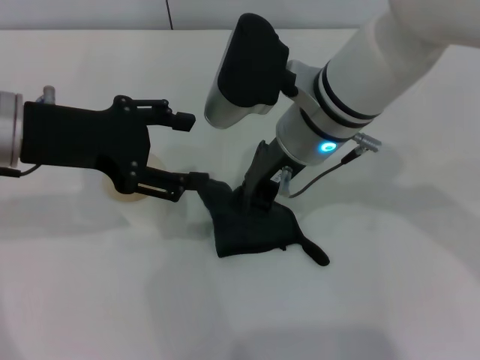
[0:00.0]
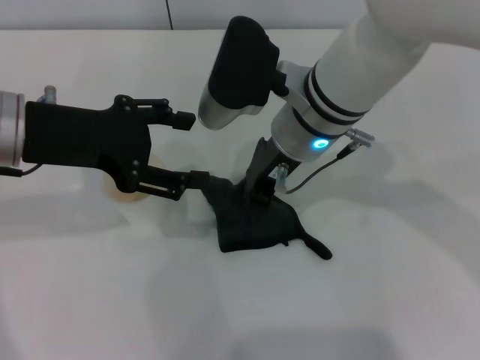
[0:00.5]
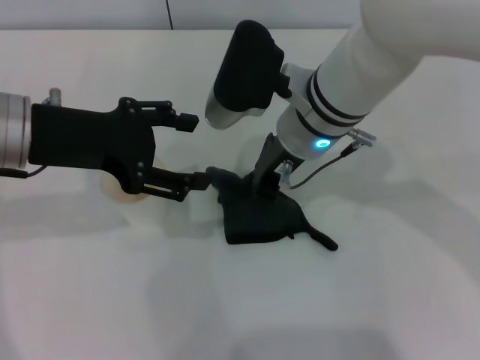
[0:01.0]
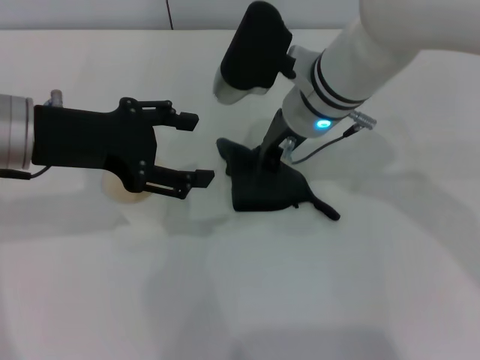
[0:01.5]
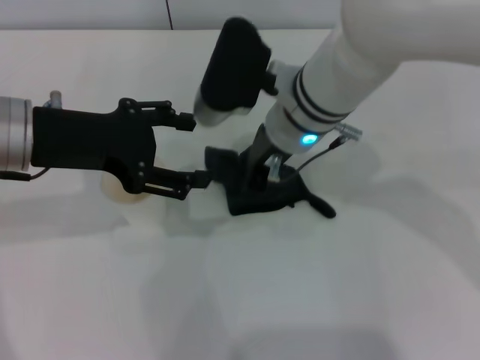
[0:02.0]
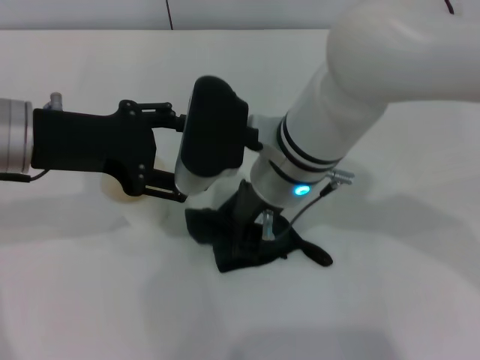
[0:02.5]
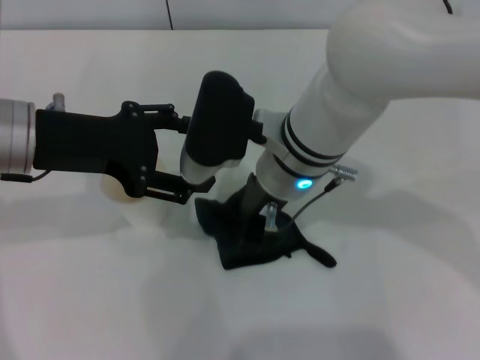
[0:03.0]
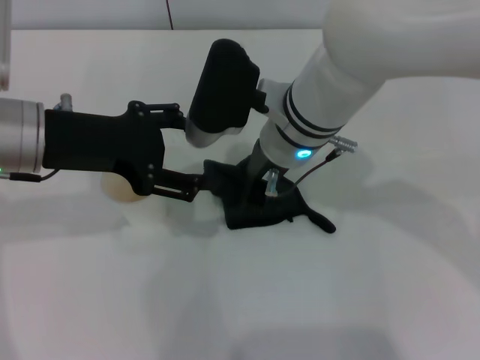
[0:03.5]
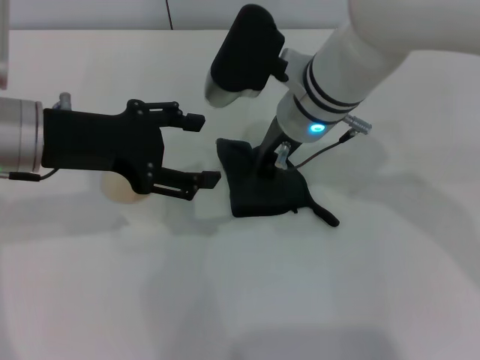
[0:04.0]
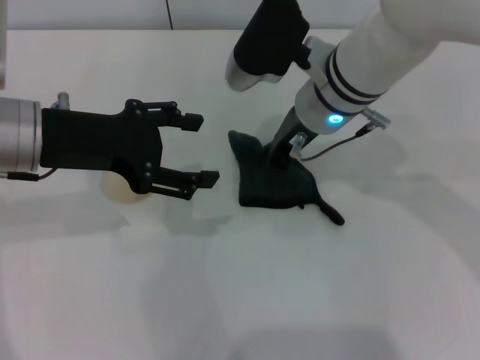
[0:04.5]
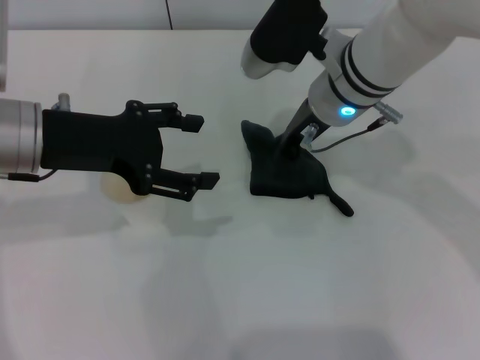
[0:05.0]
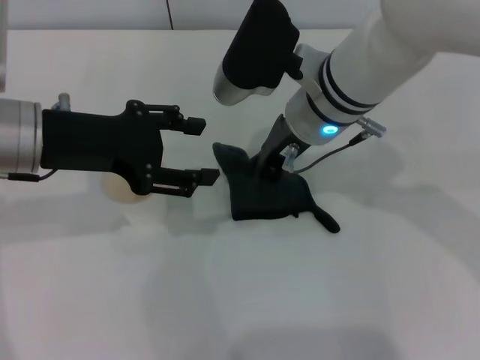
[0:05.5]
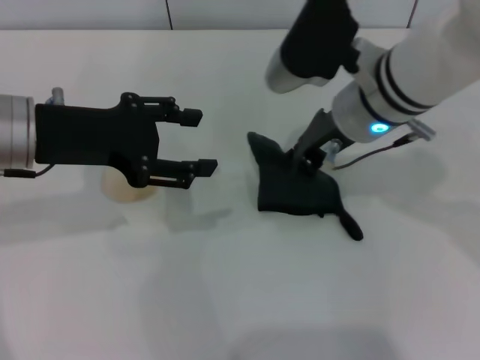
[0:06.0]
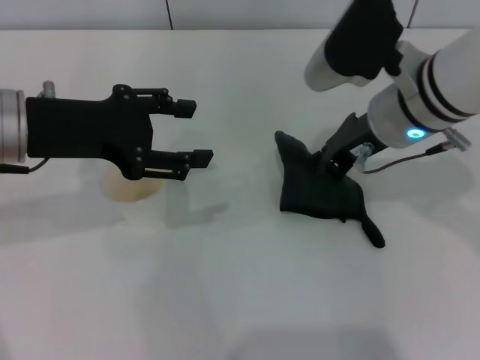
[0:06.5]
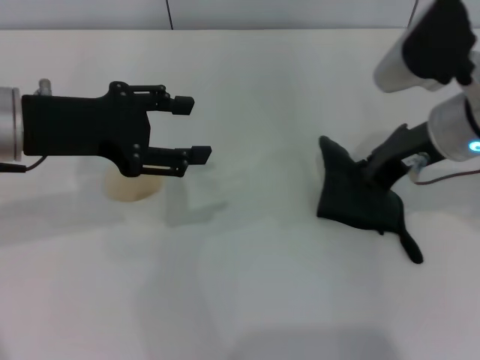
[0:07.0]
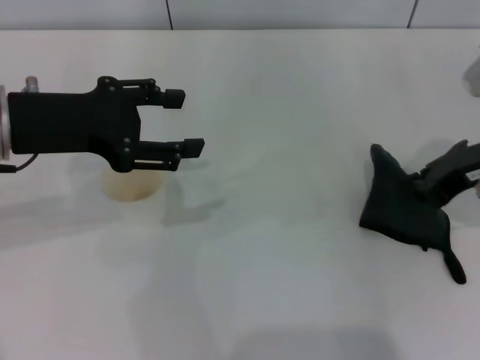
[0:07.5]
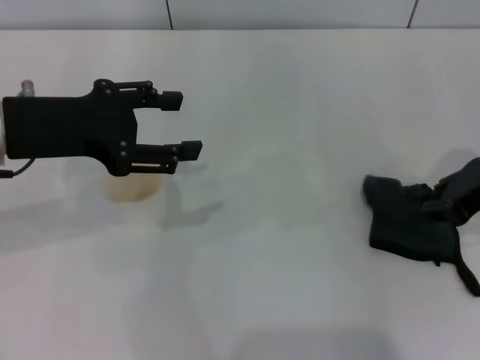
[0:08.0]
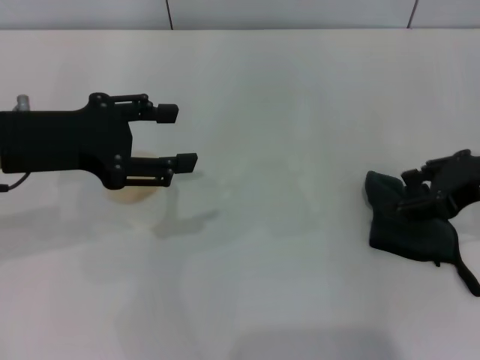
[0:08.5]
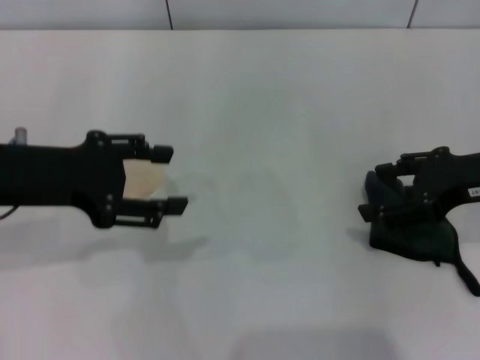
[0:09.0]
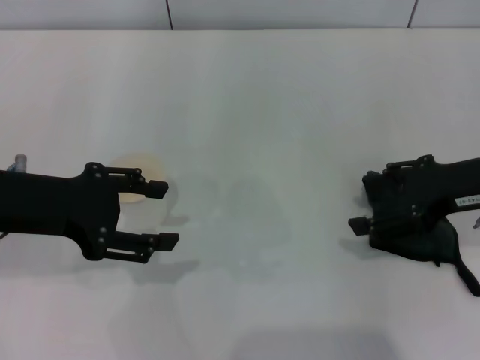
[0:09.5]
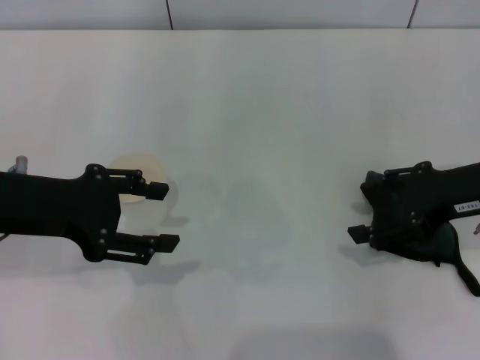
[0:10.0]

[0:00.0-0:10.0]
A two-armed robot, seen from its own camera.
Step, 0.0 to 7.5 s: Wipe the stains off the table with the right gripper.
Step, 8.0 to 9.0 s: Place the rag on the table with the right gripper.
0.0 to 4.0 s: The grippers stay close to where they were, moving slightly.
4.0 to 6.0 s: The left gripper closes its fingers. The right gripper heads to the right, covering some 5 cm.
6.0 to 8.0 s: The right gripper moves to the right, about 15 cm.
8.0 to 10.0 s: The right gripper opens.

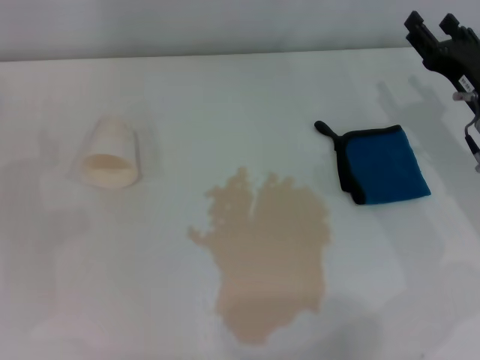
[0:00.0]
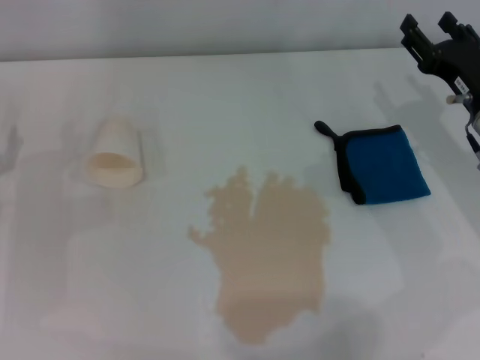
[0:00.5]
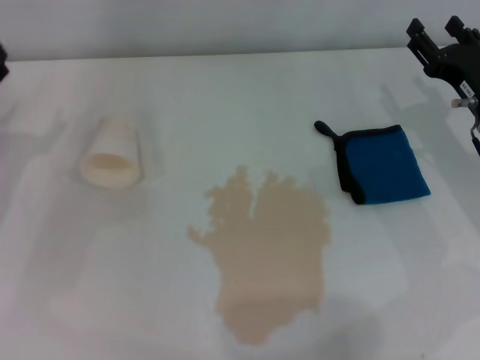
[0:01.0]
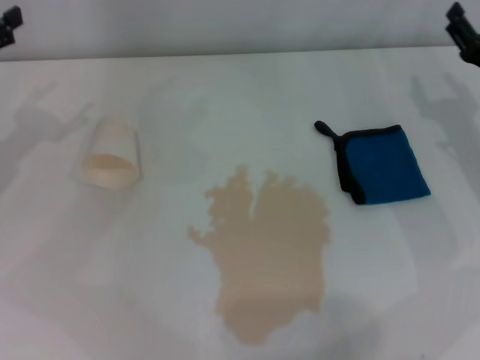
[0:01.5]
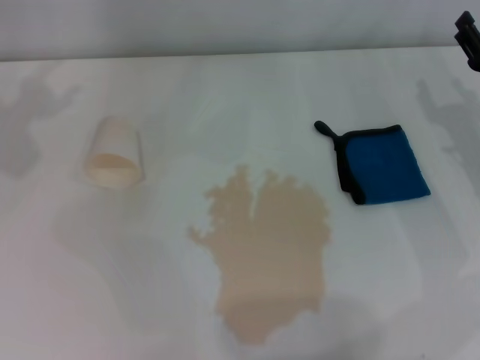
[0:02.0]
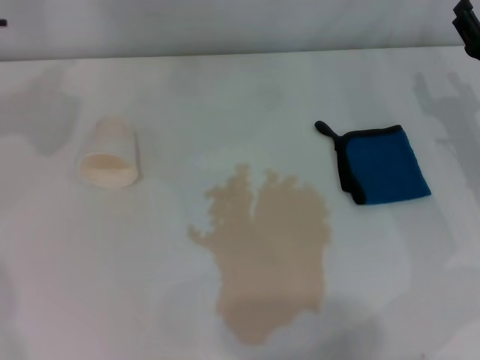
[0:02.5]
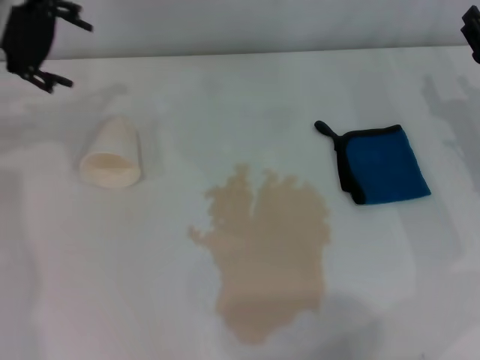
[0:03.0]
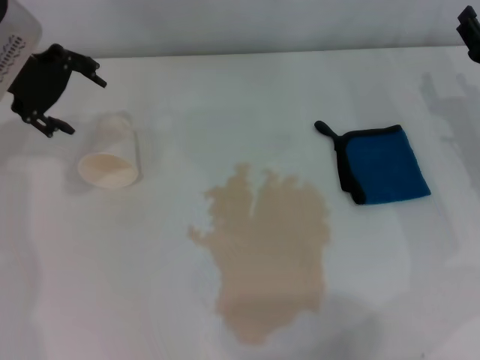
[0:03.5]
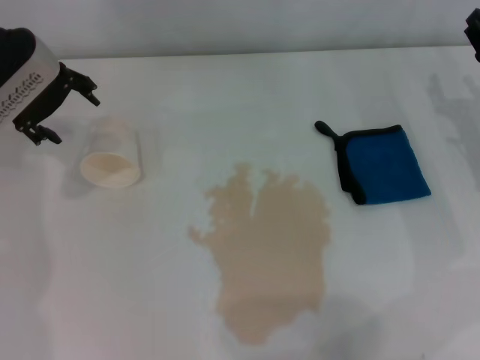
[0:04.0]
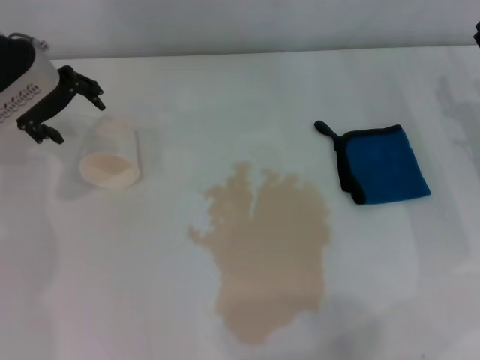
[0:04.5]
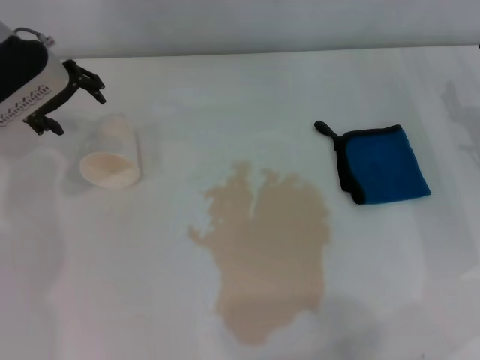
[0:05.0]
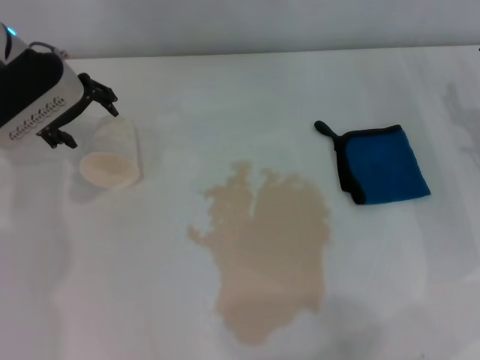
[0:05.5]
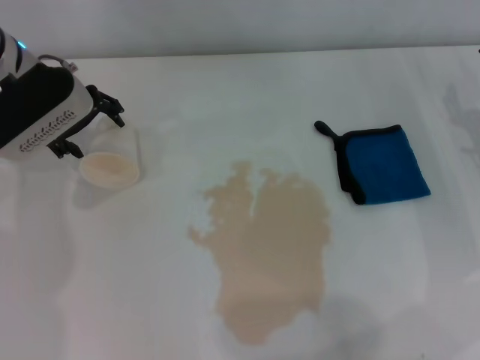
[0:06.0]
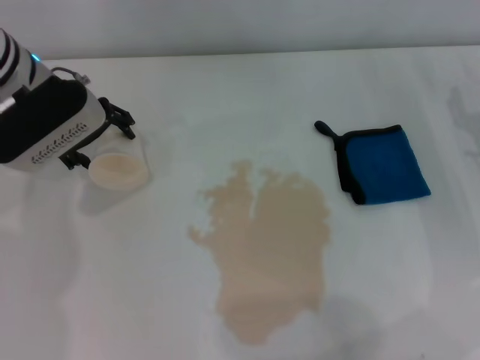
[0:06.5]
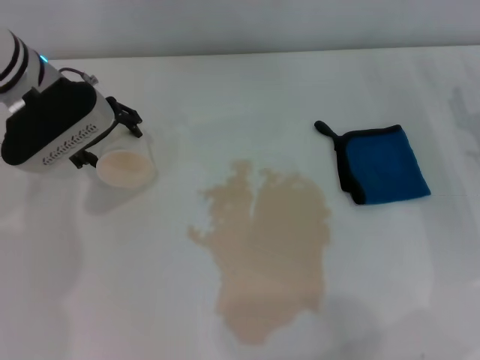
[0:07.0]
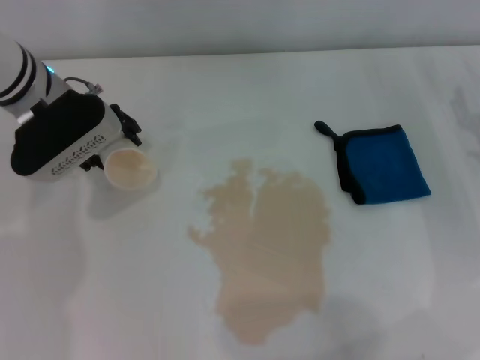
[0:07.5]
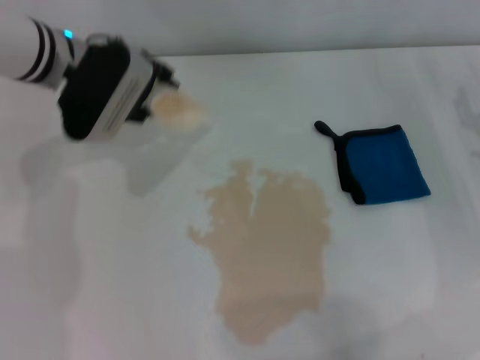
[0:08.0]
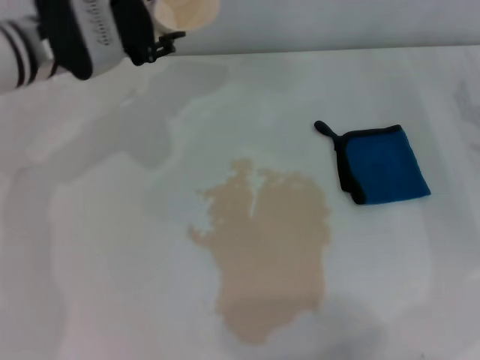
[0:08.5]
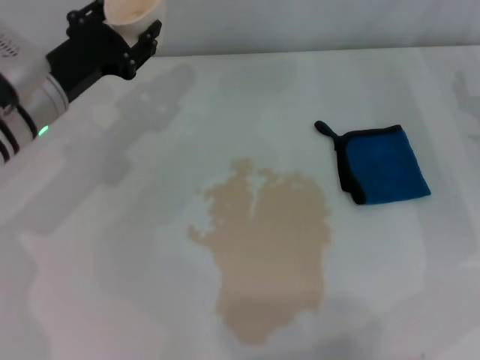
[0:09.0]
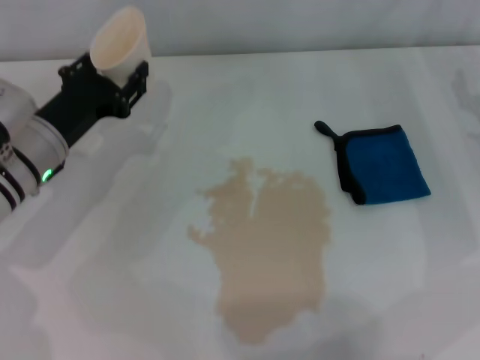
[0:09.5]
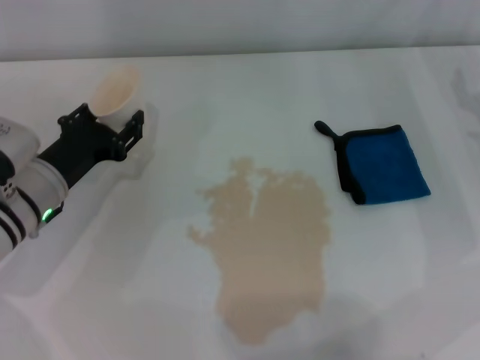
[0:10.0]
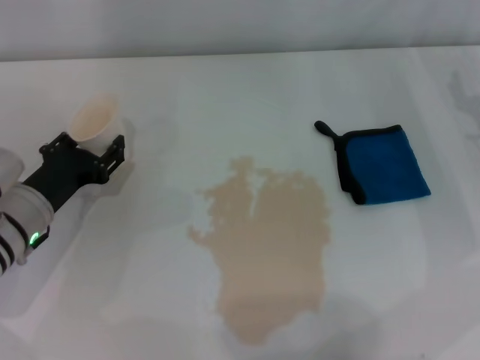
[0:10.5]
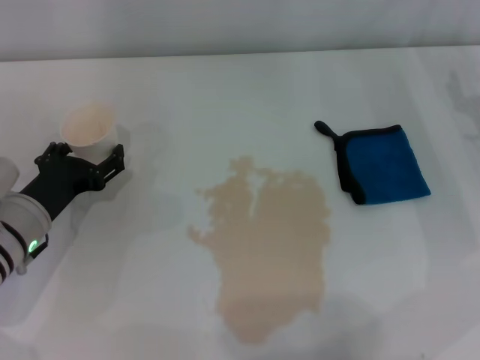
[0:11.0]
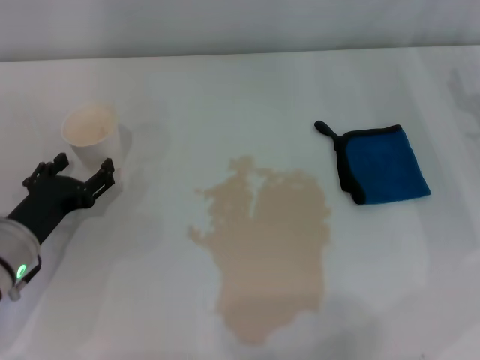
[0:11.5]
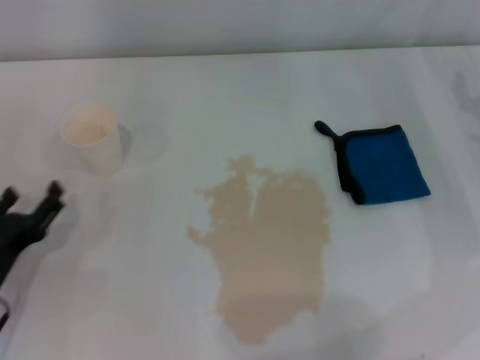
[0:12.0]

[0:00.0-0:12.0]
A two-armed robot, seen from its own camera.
Step, 0.0 to 7.5 s: Grasp the paper cup with the left gripper.
Step, 8.0 to 10.5 s: Stand the paper cup upright with the left gripper.
2.0 to 4.0 s: The left gripper is displaced to the right, downward and forward by roughly 15 cm.
4.0 to 6.0 s: The grippers stay close to where they were, moving slightly.
6.0 to 8.0 s: The left gripper closes.
8.0 to 10.0 s: The left gripper is displaced downward, backward and to the left by roughly 15 cm.
10.0 to 12.0 s: The left gripper is displaced backward and to the left by some 15 cm, and opens its fingers.

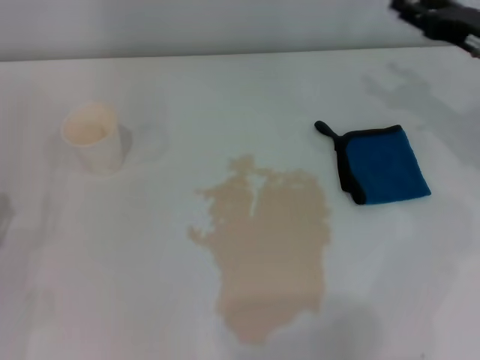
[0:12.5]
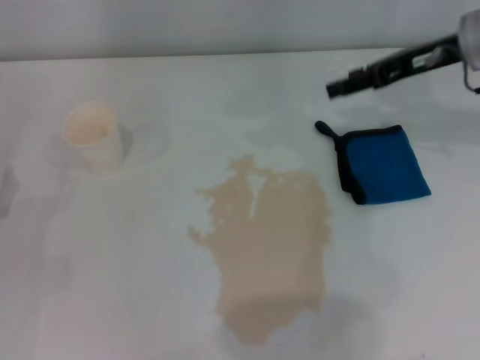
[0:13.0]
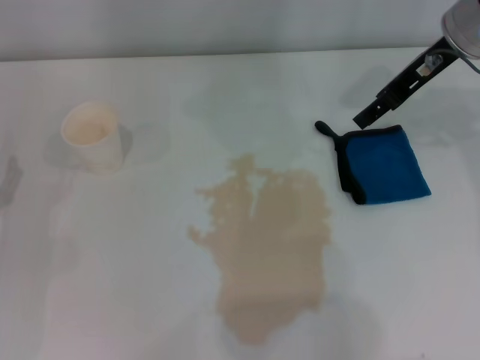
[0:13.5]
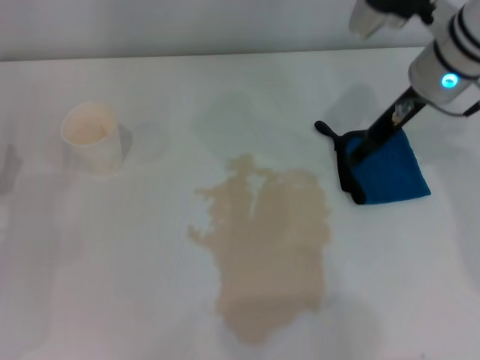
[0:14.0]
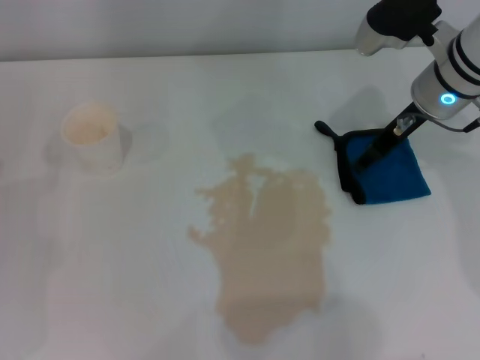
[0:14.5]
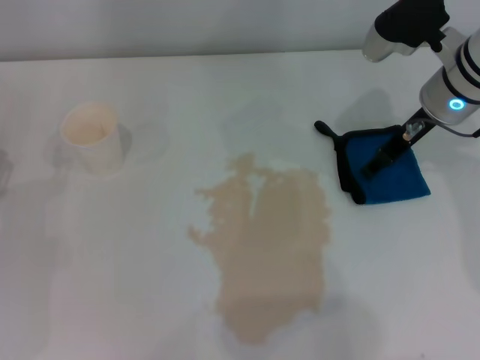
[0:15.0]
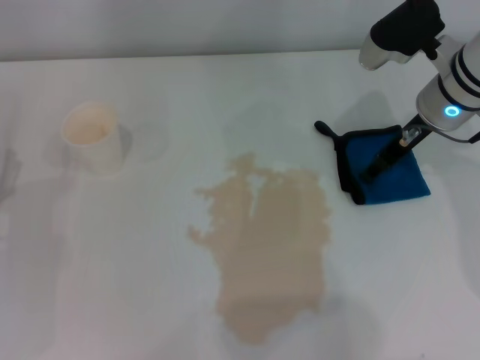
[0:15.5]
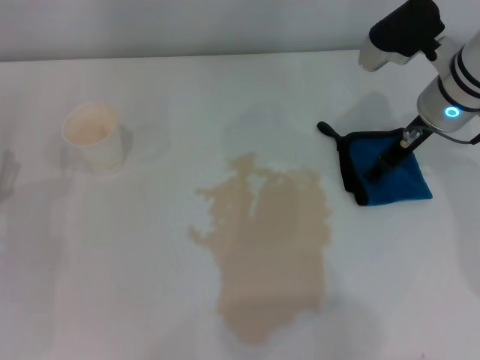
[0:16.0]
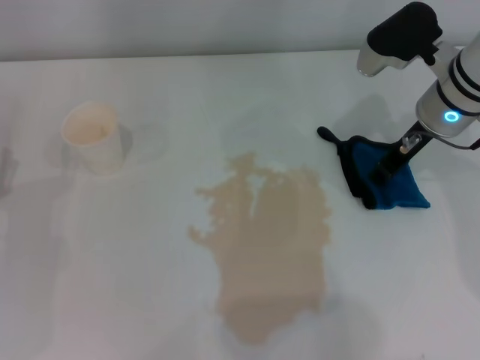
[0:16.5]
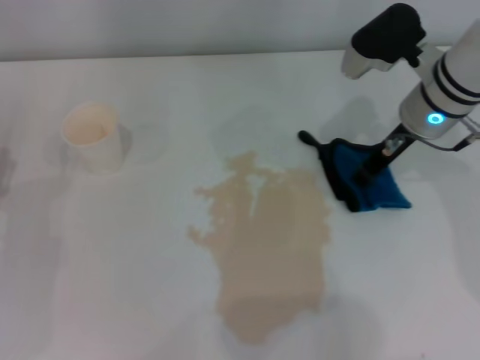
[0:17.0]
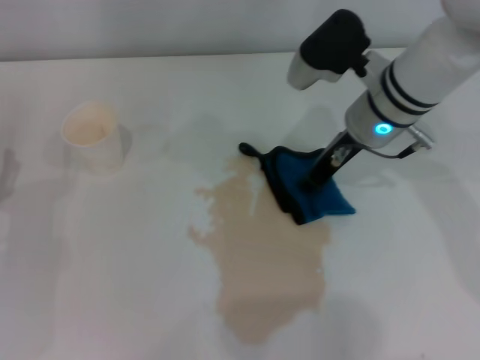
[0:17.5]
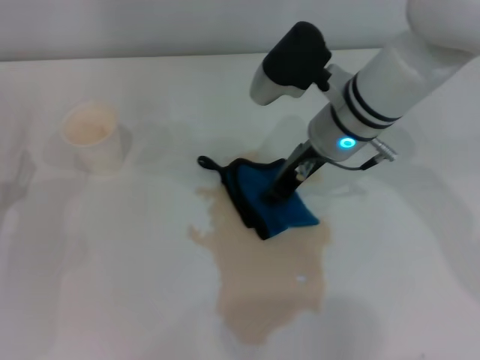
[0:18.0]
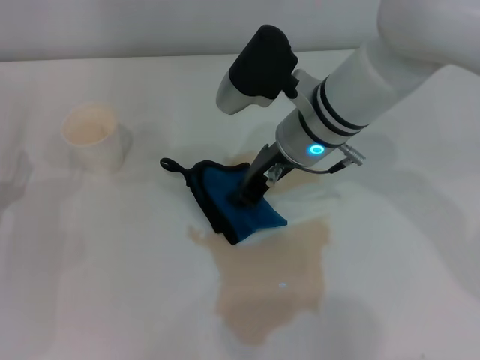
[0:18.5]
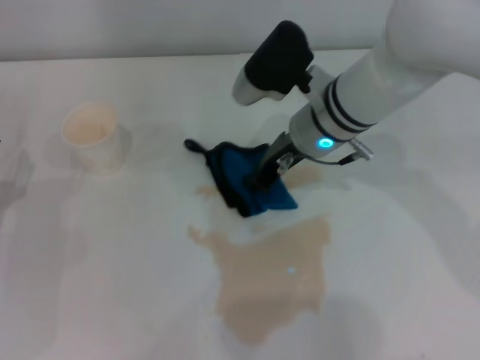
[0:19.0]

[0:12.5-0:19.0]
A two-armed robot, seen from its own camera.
Step, 12.5 to 16.0 s: Grasp the rag with the right gripper.
12.5 to 14.5 s: The right gripper travels to the left by about 10 cm.
14.5 to 17.0 s: The right gripper closes up.
17.0 to 19.0 s: The right gripper goes about 10 cm to the left.
